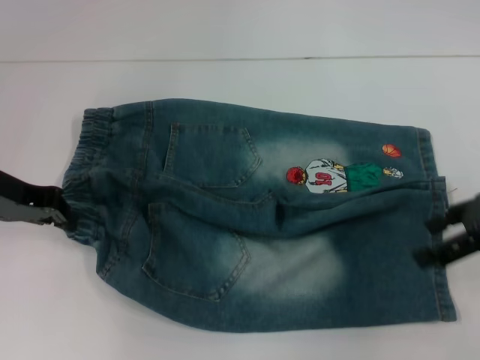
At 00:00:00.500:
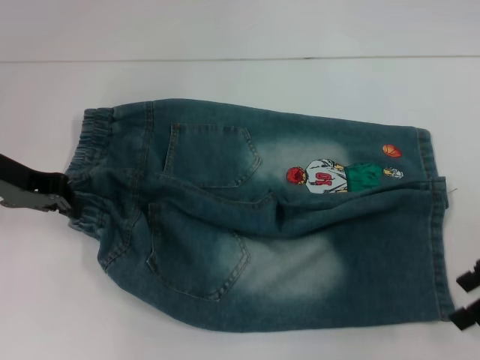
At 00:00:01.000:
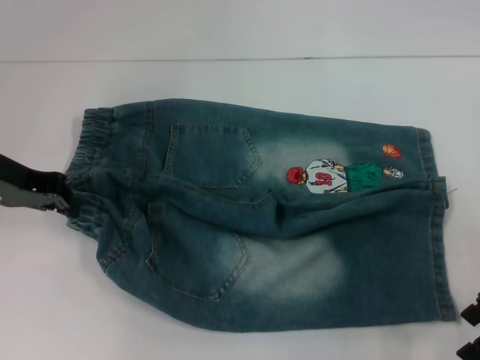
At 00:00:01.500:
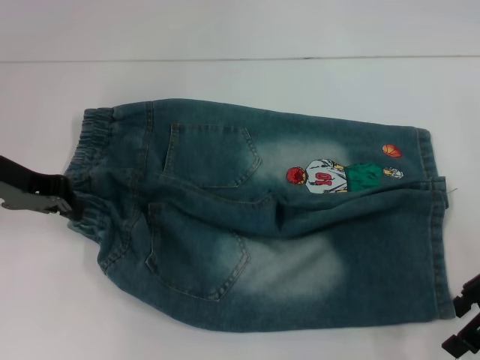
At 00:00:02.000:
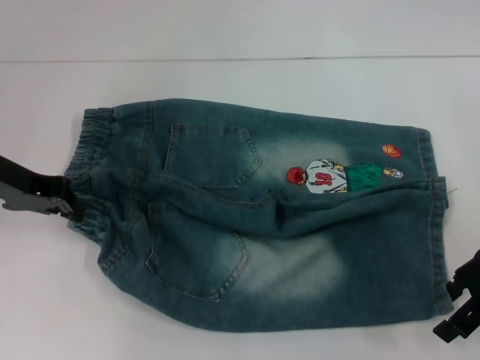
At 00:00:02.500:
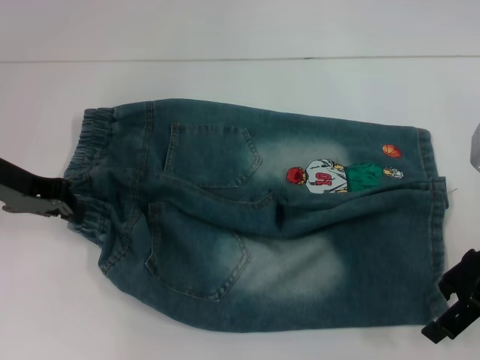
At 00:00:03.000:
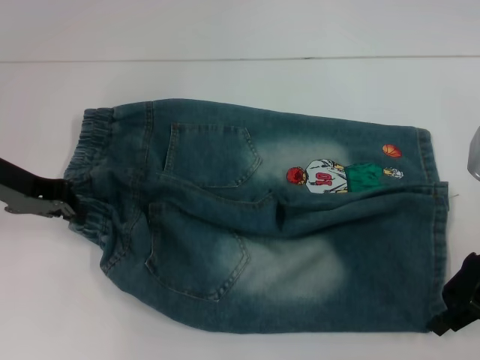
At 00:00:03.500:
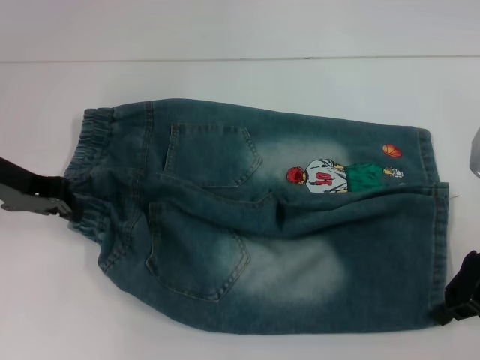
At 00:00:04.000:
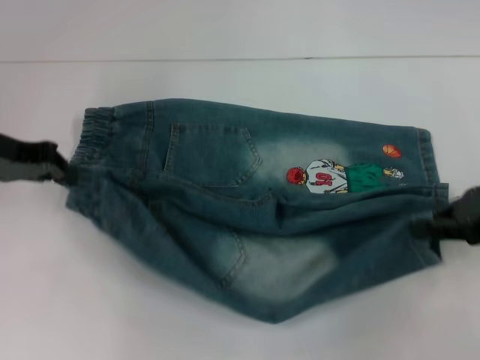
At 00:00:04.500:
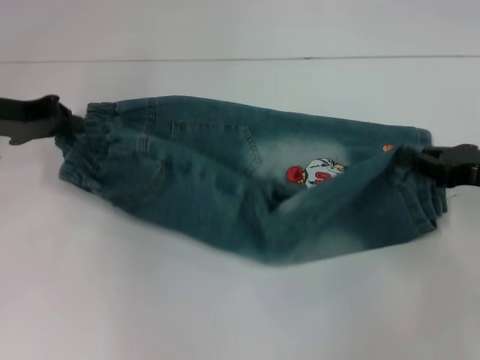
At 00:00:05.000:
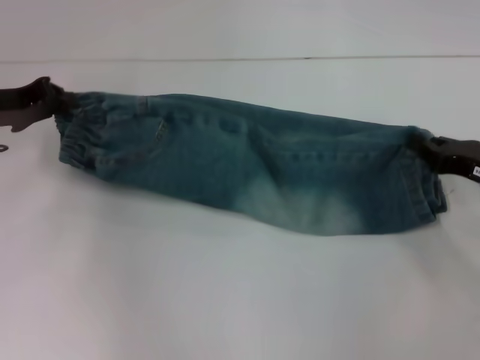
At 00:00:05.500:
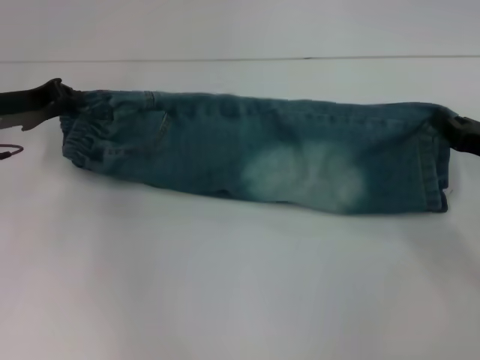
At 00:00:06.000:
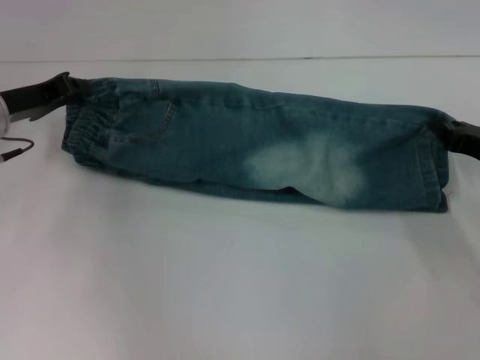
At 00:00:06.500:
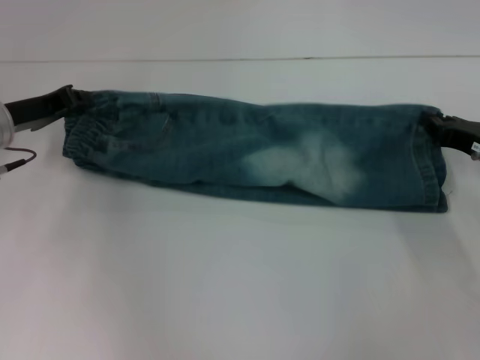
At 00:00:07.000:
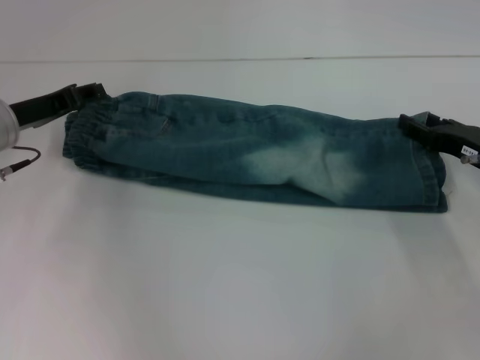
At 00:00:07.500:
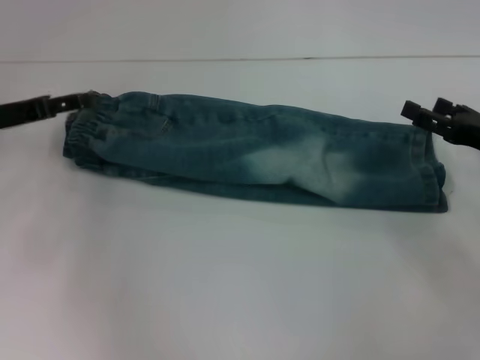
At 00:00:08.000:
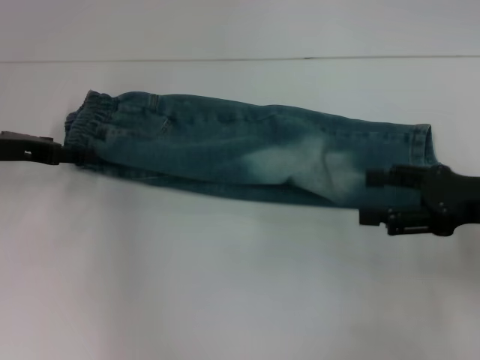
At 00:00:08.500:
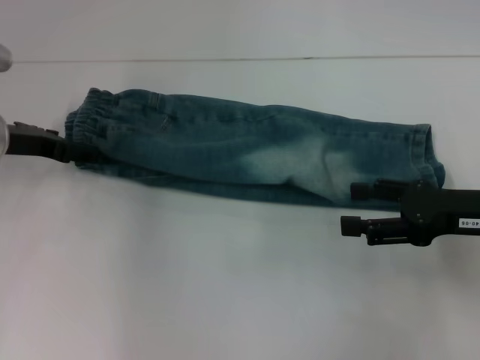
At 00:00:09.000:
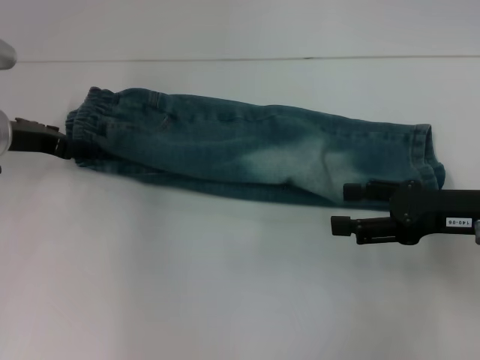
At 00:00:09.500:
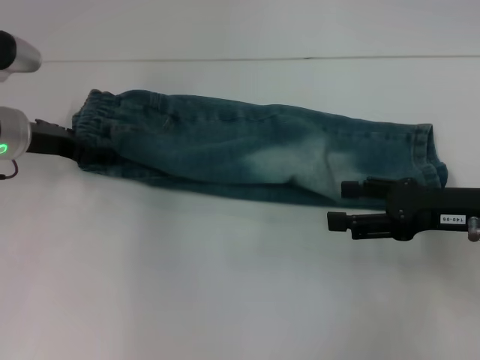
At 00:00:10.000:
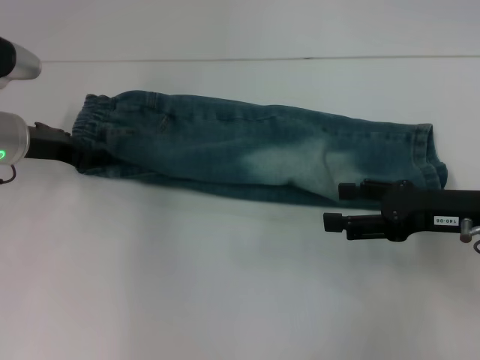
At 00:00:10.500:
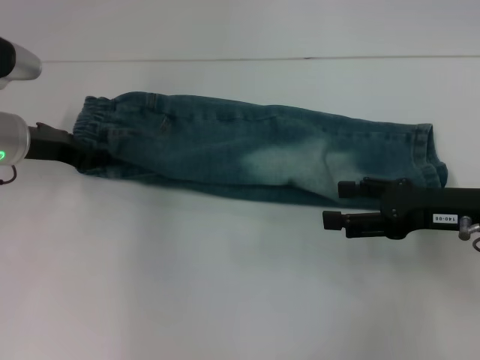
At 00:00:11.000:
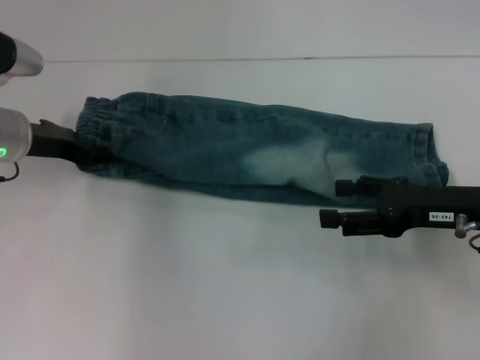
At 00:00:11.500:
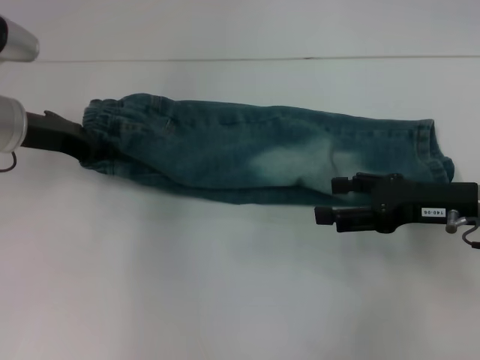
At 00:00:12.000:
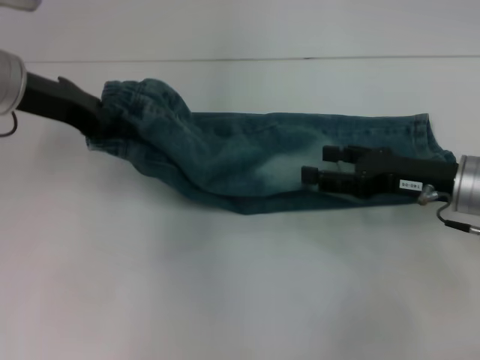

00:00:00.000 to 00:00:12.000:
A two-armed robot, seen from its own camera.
Step, 00:00:00.000 to 00:00:03.000: Grab the lower right pant leg with your right hand.
Step, 00:00:03.500 to 00:00:07.000: Fold upward with your right hand.
Step, 00:00:07.500 to 00:00:09.500: Hold the waistband with your left hand.
00:00:02.000 to 00:00:04.000: The right gripper closes.
00:00:04.000 to 00:00:06.000: The left gripper travels downward by approximately 5 cm. The right gripper heads downward, covering about 10 cm.
00:00:06.000 to 00:00:08.000: The left gripper opens; the right gripper moves upward, about 5 cm, and opens.
00:00:08.000 to 00:00:10.000: The grippers move only a little.
00:00:10.000 to 00:00:12.000: The left gripper goes approximately 10 cm upward, and closes.

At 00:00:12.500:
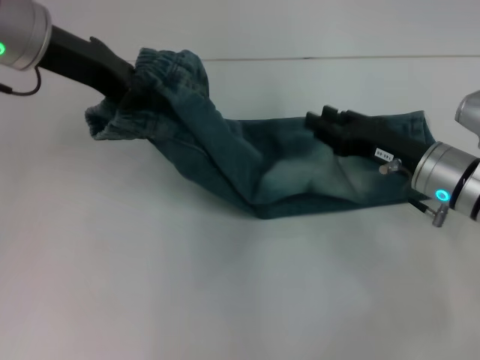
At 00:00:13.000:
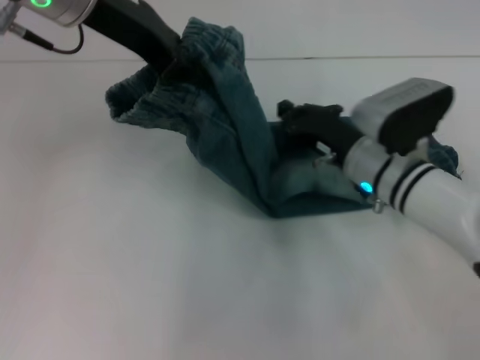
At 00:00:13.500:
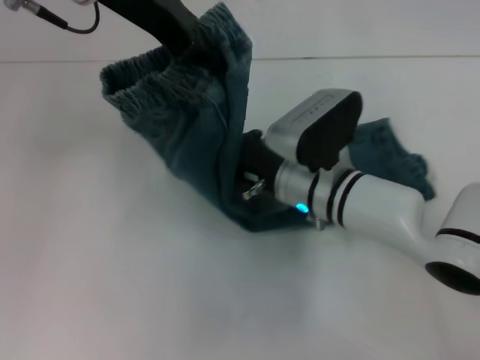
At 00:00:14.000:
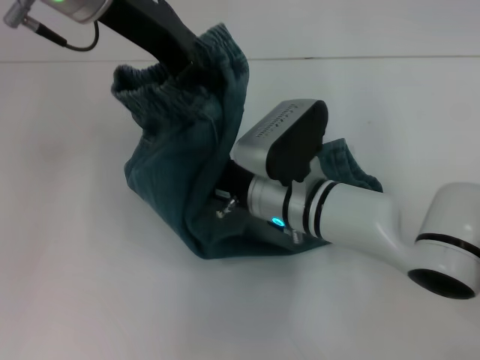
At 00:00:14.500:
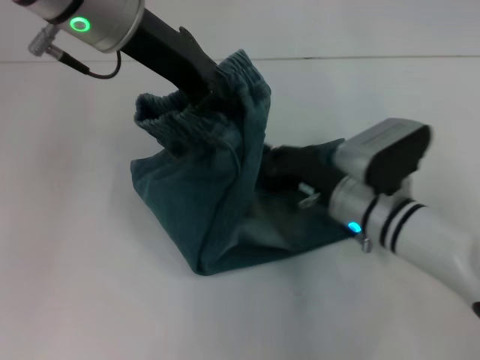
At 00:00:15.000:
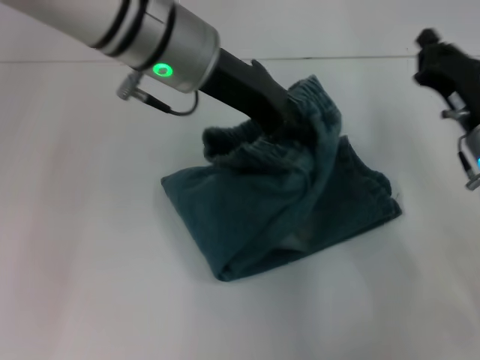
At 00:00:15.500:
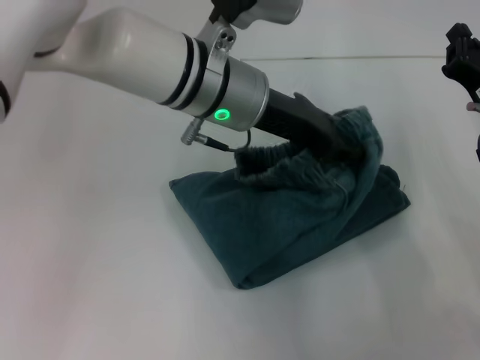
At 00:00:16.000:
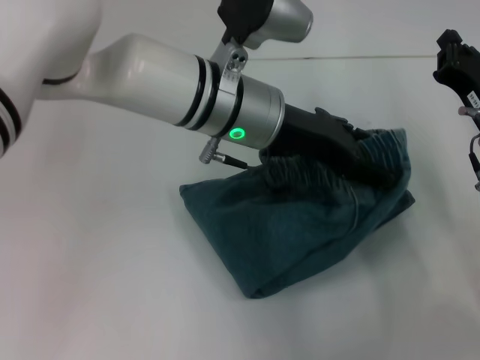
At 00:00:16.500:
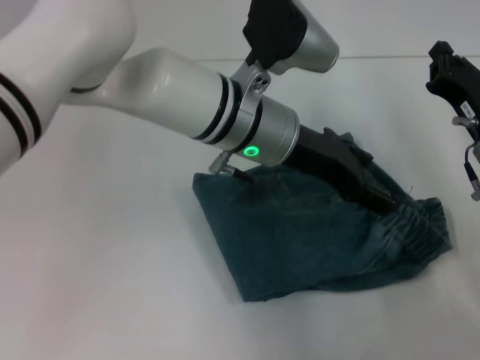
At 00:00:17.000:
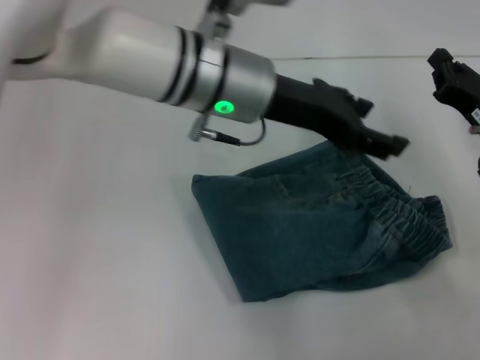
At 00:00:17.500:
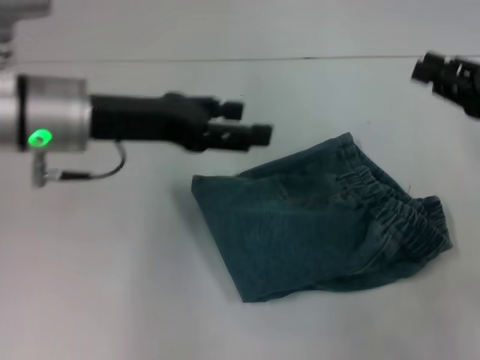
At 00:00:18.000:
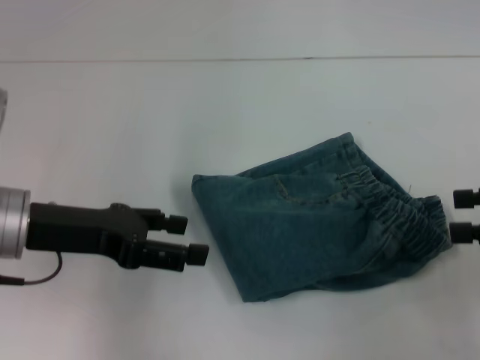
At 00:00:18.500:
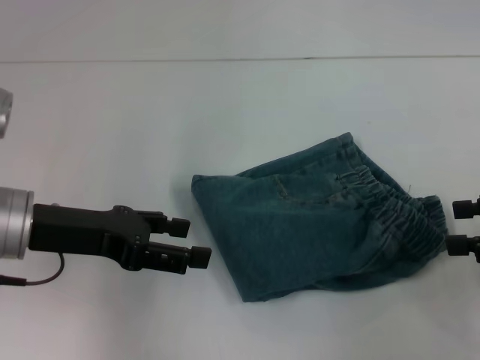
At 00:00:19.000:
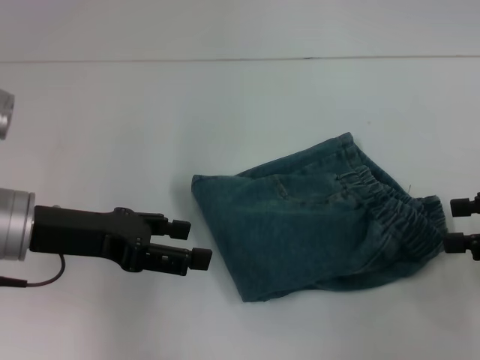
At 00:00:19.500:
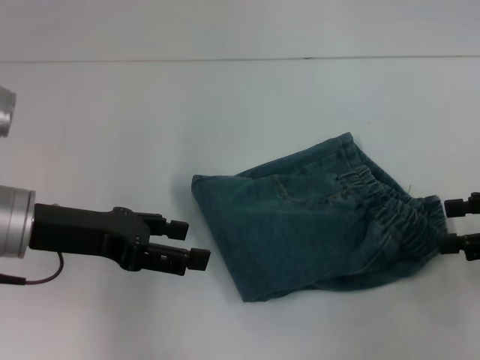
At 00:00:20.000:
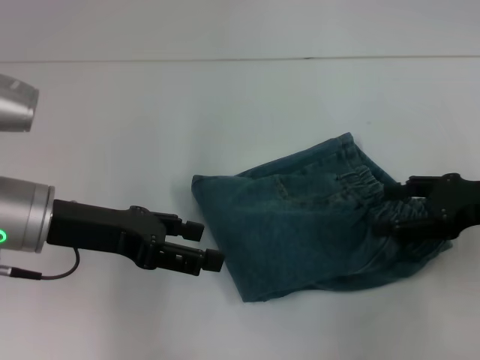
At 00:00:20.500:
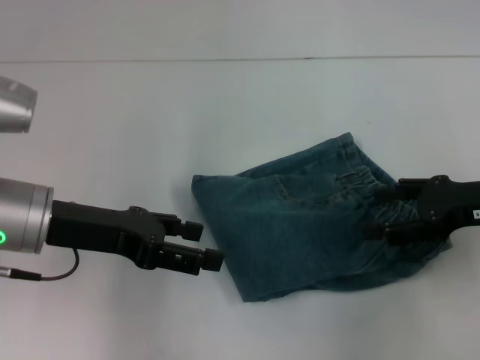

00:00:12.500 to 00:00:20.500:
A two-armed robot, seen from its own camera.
Step, 00:00:14.500 to 00:00:16.500: Fold to the right with your left hand.
00:00:12.500 to 00:00:14.500: The left gripper goes about 10 cm to the right. Meanwhile the right gripper is displaced to the left by roughly 10 cm, and closes.
00:00:14.500 to 00:00:16.500: The right gripper travels to the right by about 15 cm; the left gripper moves downward and to the right, approximately 15 cm, and opens up.
00:00:16.500 to 00:00:18.500: The right gripper shifts roughly 15 cm to the right, upward and backward, and opens up. Meanwhile the left gripper travels to the left by approximately 20 cm.
00:00:18.500 to 00:00:20.500: The right gripper goes about 5 cm to the left.
